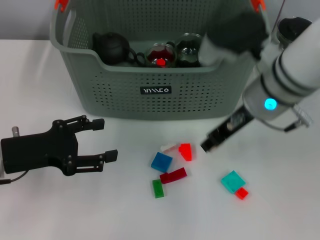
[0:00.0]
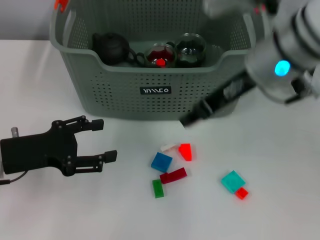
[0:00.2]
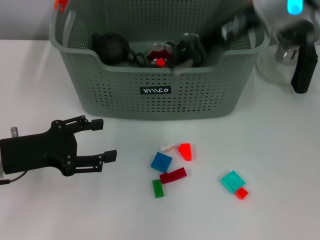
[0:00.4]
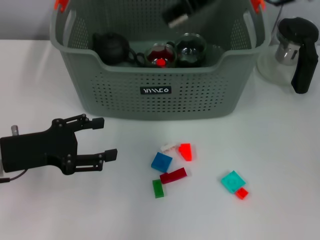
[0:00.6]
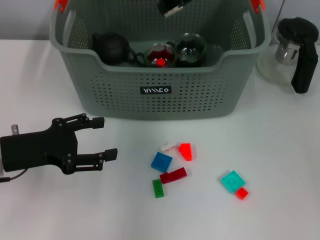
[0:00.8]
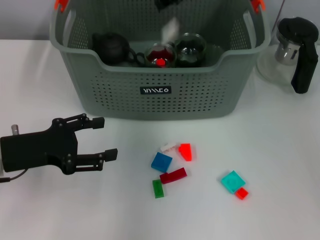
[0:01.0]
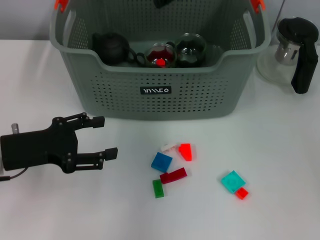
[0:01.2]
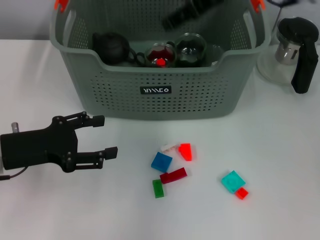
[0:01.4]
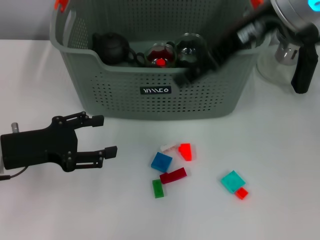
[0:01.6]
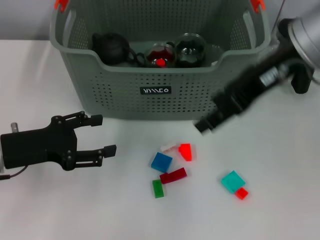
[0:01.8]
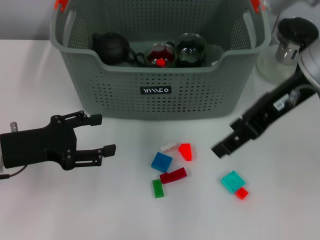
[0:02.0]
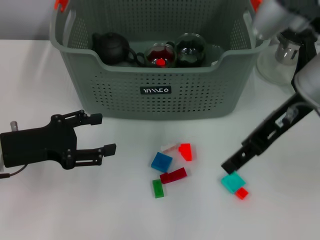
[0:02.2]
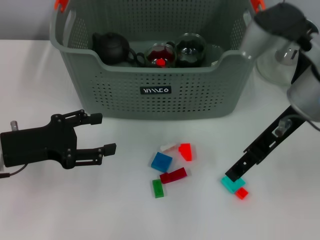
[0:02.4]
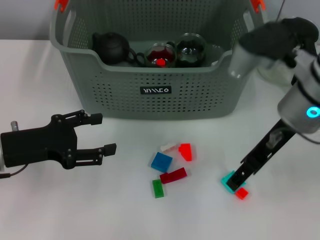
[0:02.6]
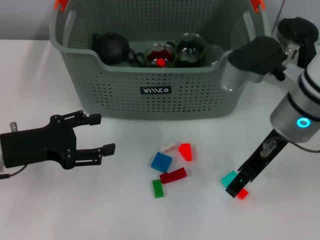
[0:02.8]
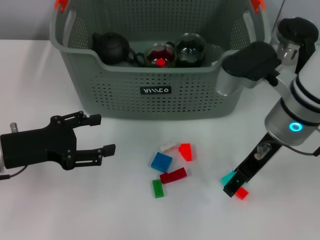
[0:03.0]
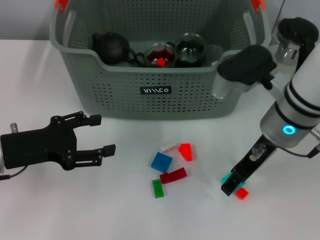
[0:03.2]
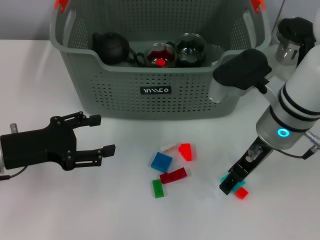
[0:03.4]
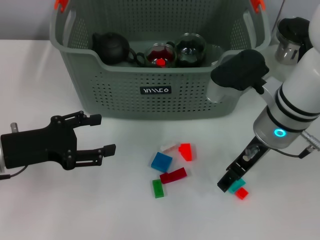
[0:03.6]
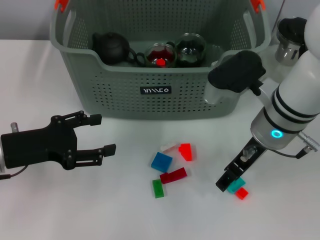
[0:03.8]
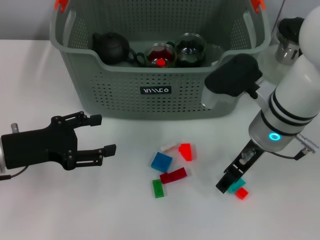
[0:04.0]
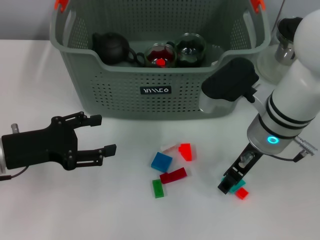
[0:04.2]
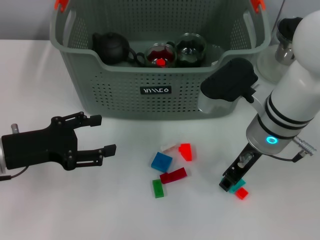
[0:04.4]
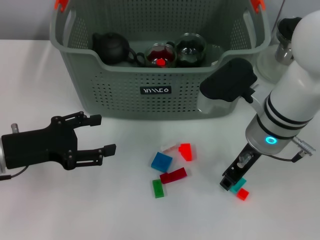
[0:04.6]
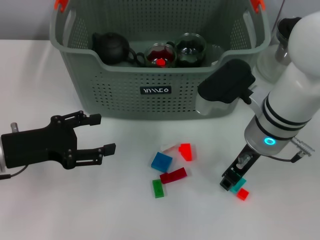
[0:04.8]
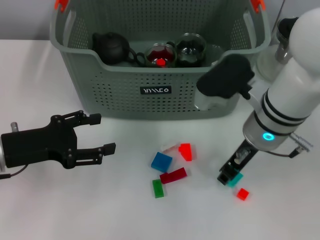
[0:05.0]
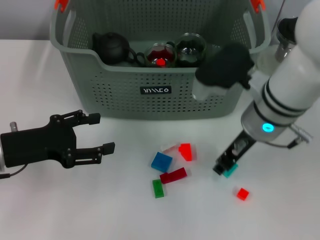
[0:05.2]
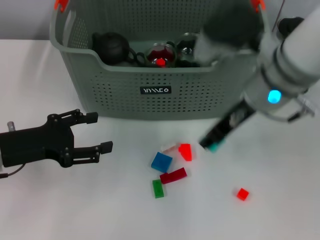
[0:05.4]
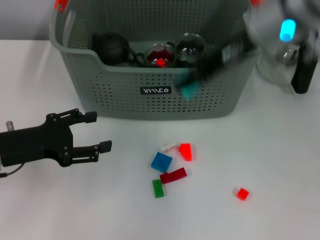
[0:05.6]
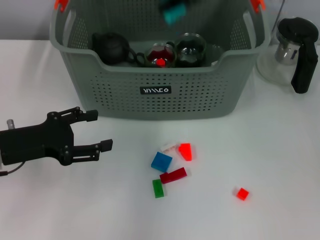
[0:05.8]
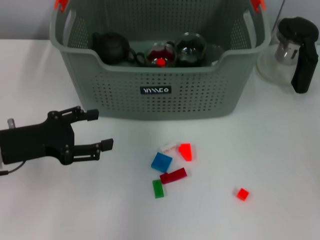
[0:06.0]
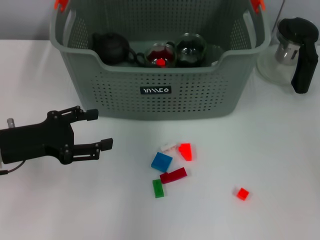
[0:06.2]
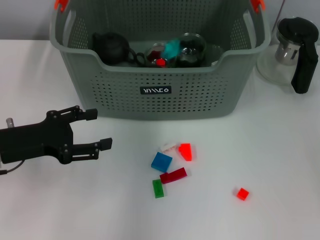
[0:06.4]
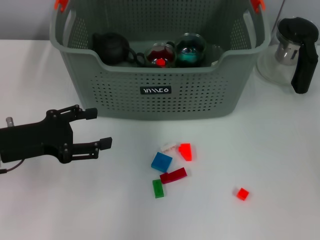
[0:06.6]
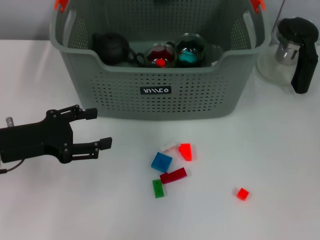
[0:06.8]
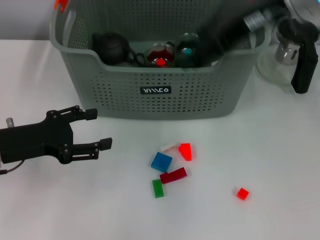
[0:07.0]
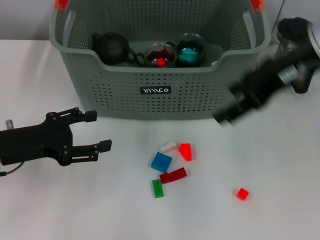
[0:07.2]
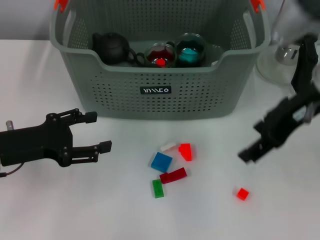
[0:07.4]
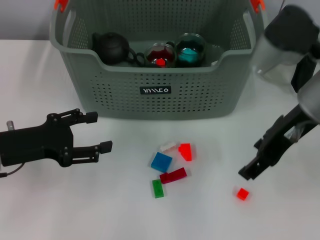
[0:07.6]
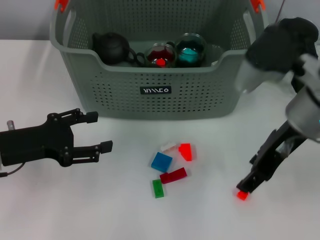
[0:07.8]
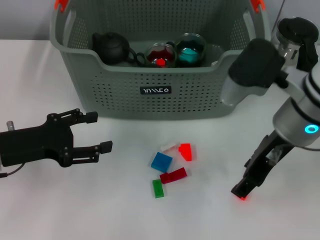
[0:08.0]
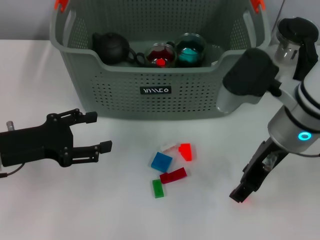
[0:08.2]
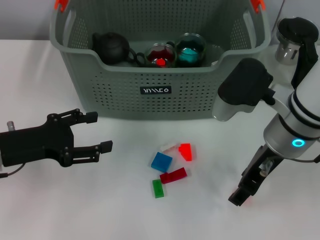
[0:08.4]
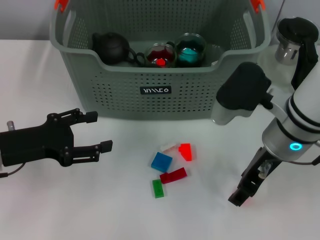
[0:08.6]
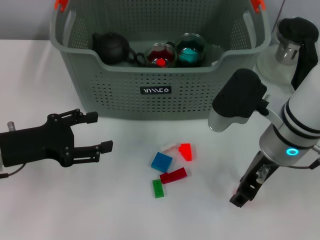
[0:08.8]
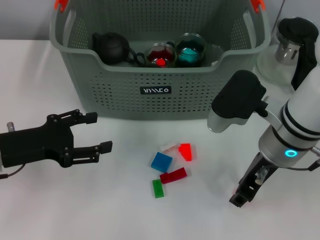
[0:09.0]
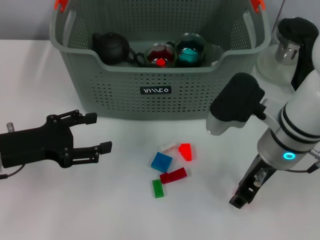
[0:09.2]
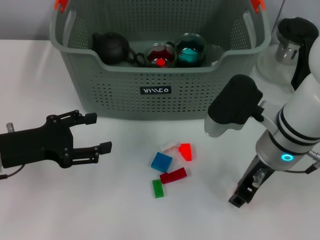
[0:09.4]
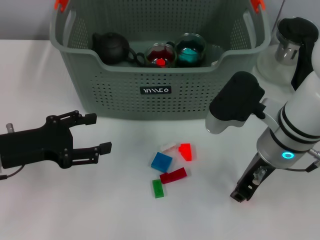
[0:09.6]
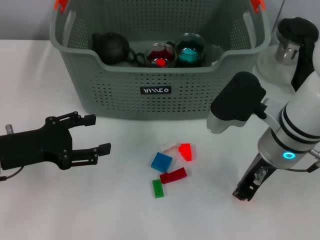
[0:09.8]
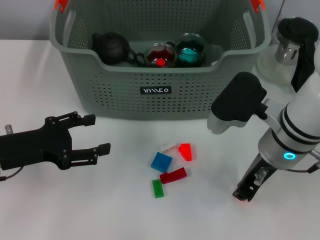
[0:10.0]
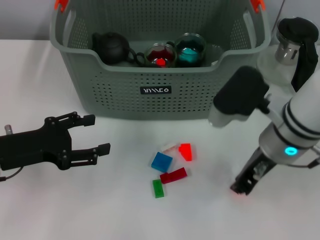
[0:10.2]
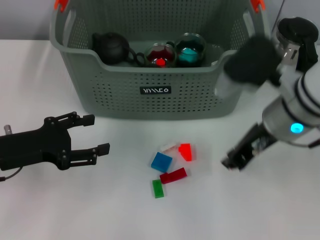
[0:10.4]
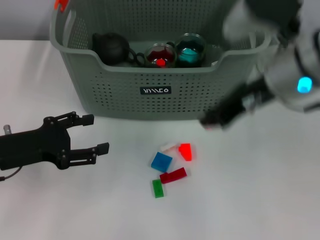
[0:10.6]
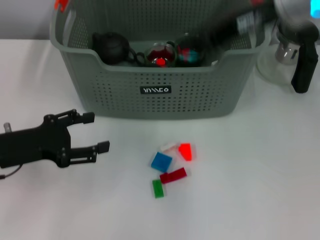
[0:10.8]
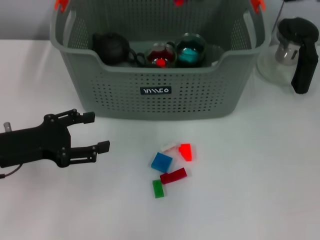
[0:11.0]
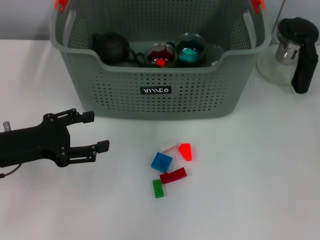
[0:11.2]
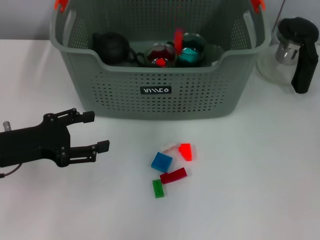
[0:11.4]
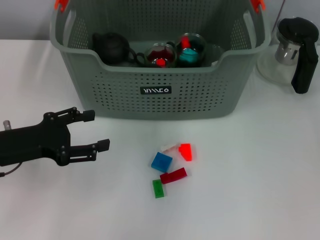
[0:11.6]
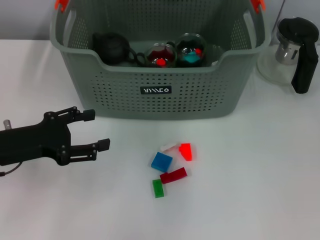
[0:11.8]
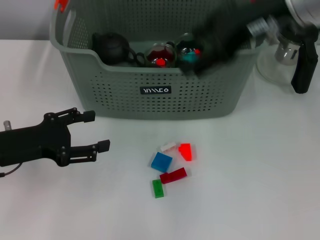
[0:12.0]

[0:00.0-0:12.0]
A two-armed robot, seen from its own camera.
Task of the whole recording: pick up the teacup on the table and place it into the storage bin, pick up the block on the table and place it into the storage bin.
Step, 0:00.0 to 0:01.2: Place the white block in the storage box with right gripper.
Step, 0:01.4 to 0:04.6: Grasp the light blue block with right gripper.
Step, 0:04.8 to 0:06.6: Place the light blue block in the storage box with right gripper.
Step, 0:06.8 to 0:09.6: Grasp the orange block with right gripper.
Step, 0:09.8 to 0:11.6: Place the orange block in the storage box with right gripper.
0:00.0 to 0:01.6: The right gripper goes about 10 cm upward, and opens its fingers.
0:01.6 to 0:03.0: The right gripper shifts some 15 cm downward.
0:03.0 to 0:04.4: There are only small adjustments of the grippers.
0:04.4 to 0:06.0: The right gripper heads upward and forward, covering some 20 cm.
0:06.0 to 0:07.6: The right gripper travels downward, backward and to the right by some 15 cm, and opens.
0:07.6 to 0:09.0: The right gripper travels downward by some 5 cm.
0:09.0 to 0:10.4: The right gripper closes its fingers.
0:10.4 to 0:12.0: The right gripper travels upward and forward by about 10 cm, and opens up.

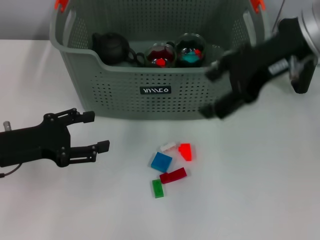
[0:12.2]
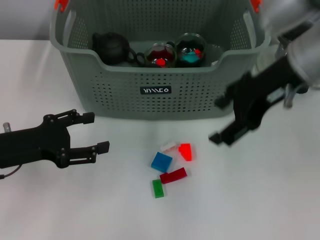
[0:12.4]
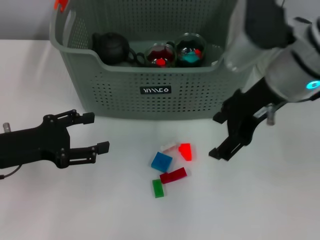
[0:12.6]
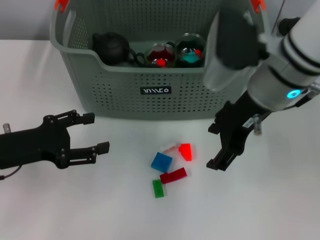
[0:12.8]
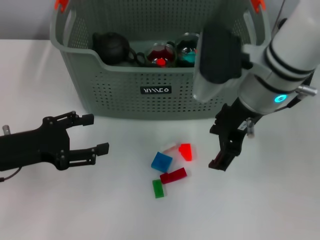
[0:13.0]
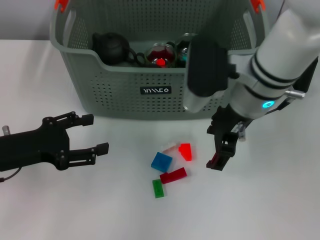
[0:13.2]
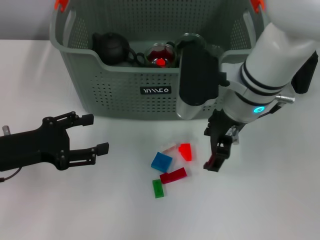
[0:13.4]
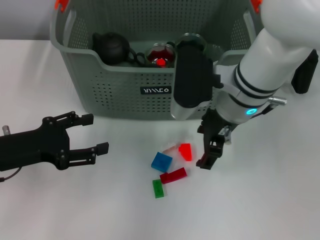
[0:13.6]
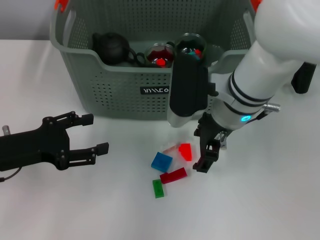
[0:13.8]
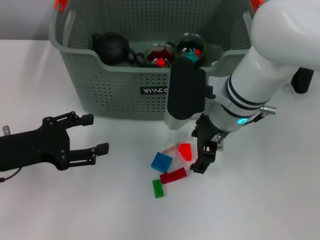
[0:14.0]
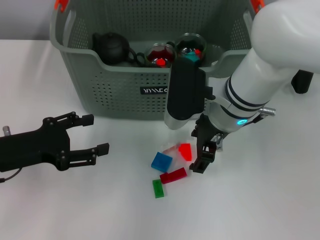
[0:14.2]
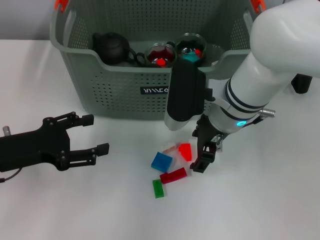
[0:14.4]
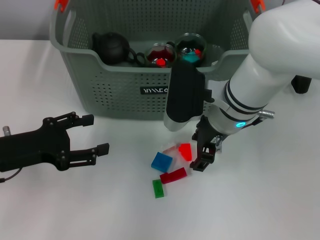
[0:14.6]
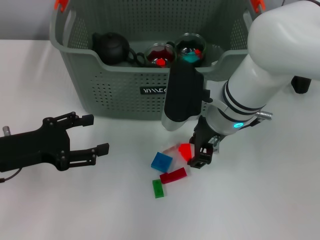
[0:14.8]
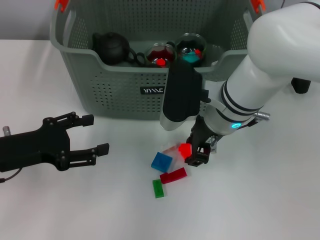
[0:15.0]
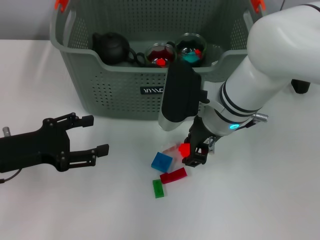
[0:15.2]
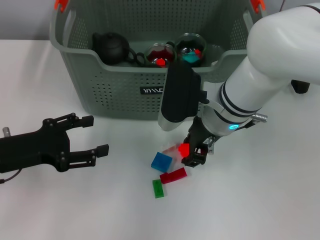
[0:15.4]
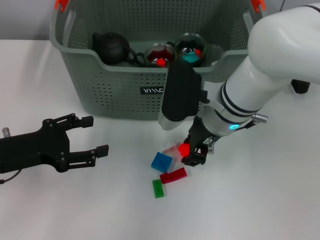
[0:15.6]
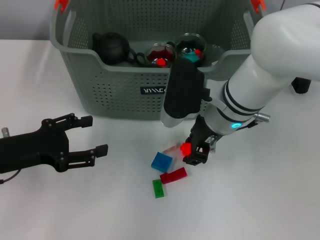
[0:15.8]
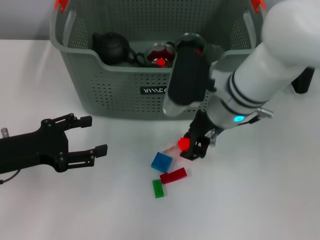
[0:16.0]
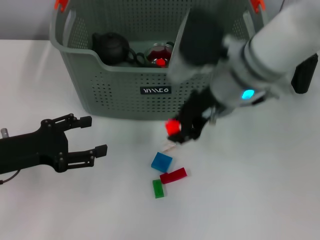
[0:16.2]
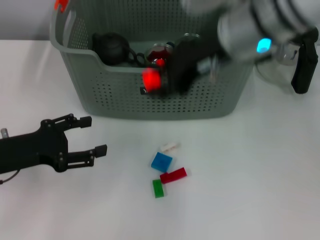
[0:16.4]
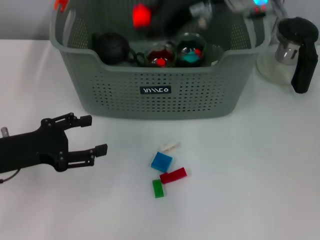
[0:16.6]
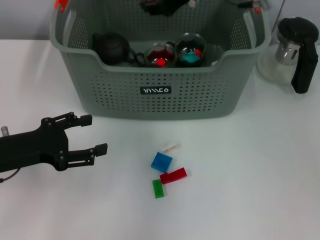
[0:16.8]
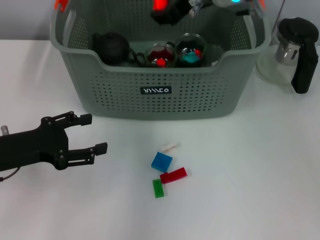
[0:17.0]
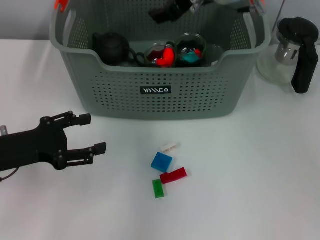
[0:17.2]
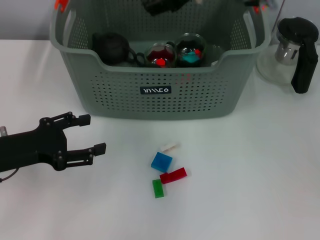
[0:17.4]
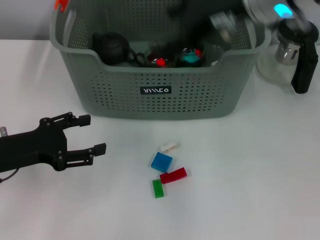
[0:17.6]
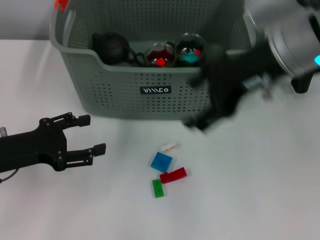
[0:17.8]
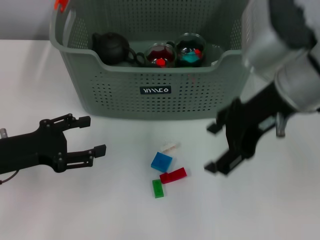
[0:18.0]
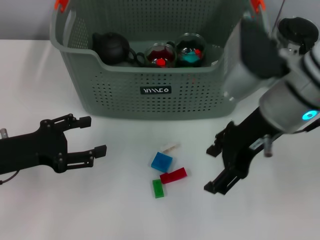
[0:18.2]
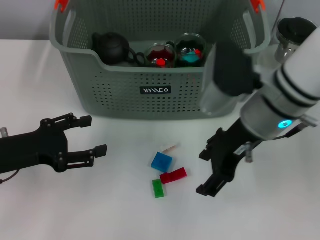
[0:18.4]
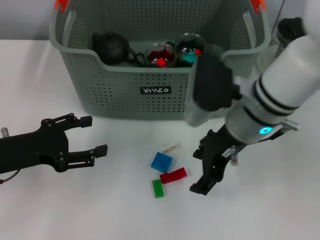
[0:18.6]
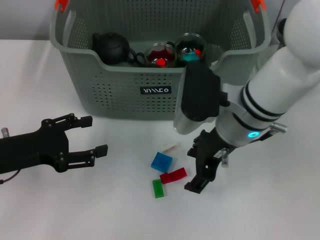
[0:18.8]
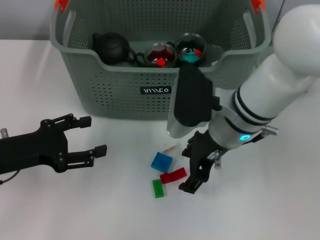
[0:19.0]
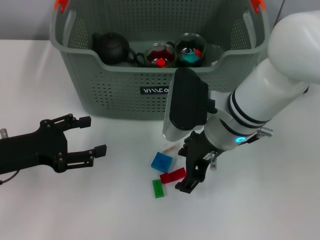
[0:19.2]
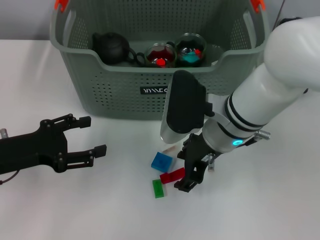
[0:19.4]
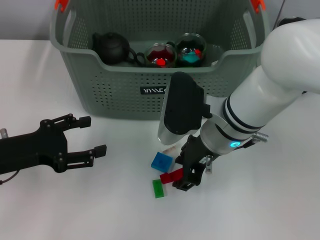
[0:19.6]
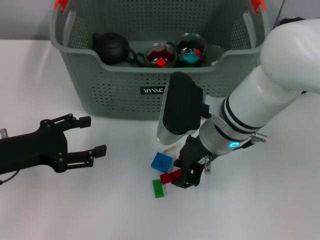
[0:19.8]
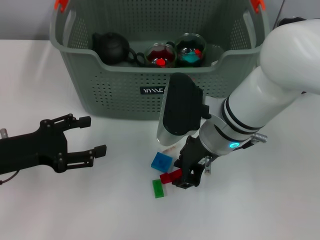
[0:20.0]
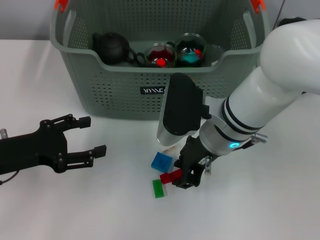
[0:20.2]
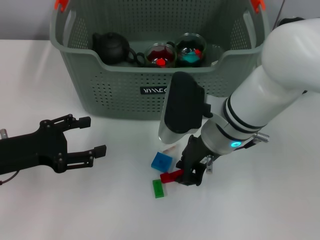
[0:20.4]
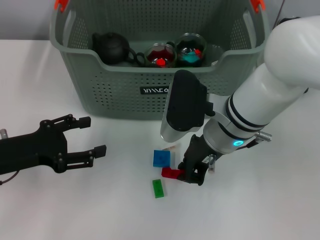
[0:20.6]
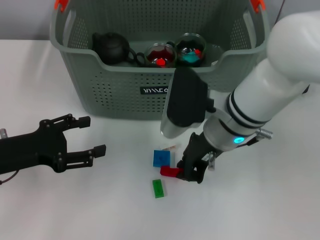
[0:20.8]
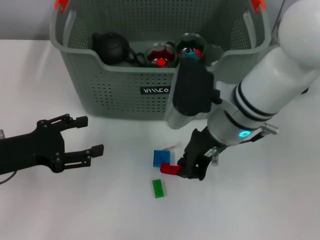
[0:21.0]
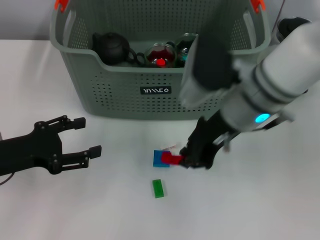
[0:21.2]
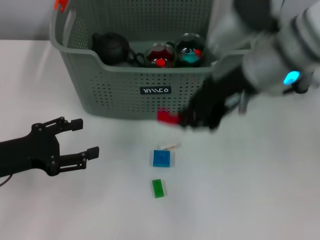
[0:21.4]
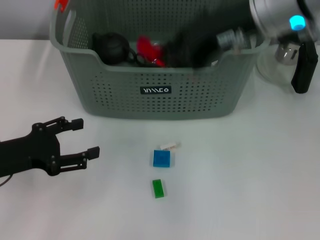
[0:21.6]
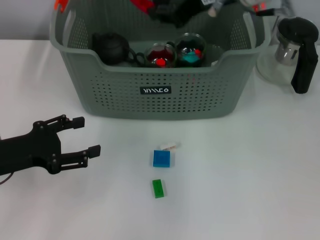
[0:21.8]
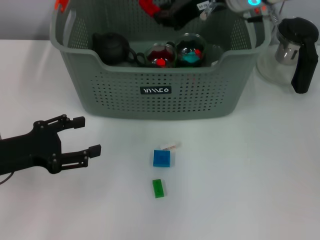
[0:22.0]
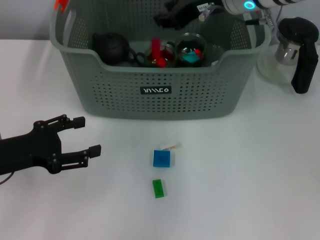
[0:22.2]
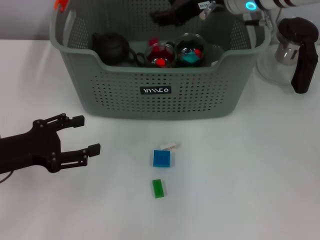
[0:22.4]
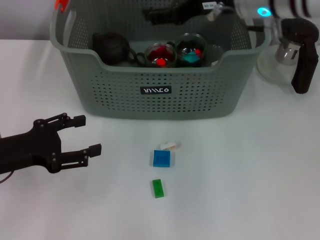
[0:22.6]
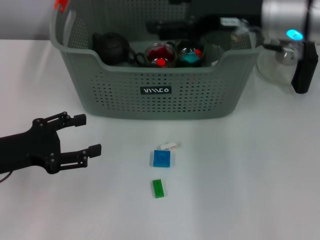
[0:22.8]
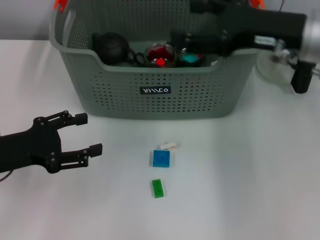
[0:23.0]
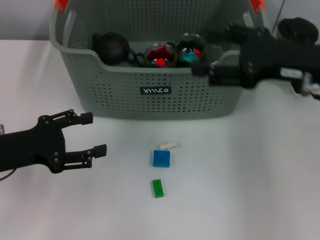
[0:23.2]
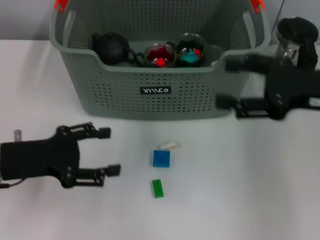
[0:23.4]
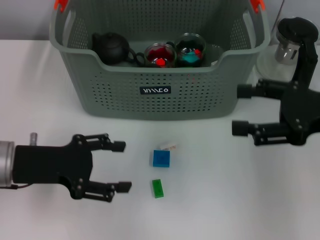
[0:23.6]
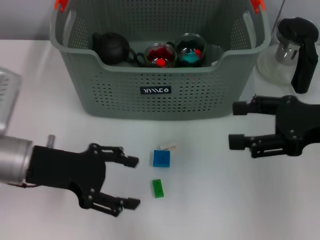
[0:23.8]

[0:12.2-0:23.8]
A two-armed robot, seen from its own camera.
Task of the whole recording: pick up the teacup on the table and place it into the storage bin, pick up the block on the table and place it into the storage bin.
Step, 0:12.2 to 0:15.4: Grasp the orange block with right gripper.
Step, 0:15.6 to 0:17.0: Place the orange block in the storage box with right gripper.
Step, 0:17.4 to 0:20.6: Grasp the red block with right gripper.
Step, 0:20.8 to 0:22.4: Place the red block in the storage box with right gripper.
0:12.2 to 0:13.6: The right gripper moves downward and to the left, roughly 15 cm.
0:13.6 to 0:15.0: The right gripper closes.
0:15.0 to 0:16.6: The right gripper goes roughly 15 cm upward.
0:16.6 to 0:18.0: The right gripper moves backward, to the right and downward, approximately 10 cm, and opens.
0:18.0 to 0:19.4: The right gripper heads downward and to the left, covering about 15 cm.
0:19.4 to 0:21.0: The right gripper closes up.
0:21.0 to 0:22.4: The right gripper goes roughly 15 cm upward and forward.
0:22.4 to 0:23.8: The left gripper goes about 5 cm to the right. The right gripper is displaced to the right, backward and downward by approximately 20 cm, and opens its fingers.
